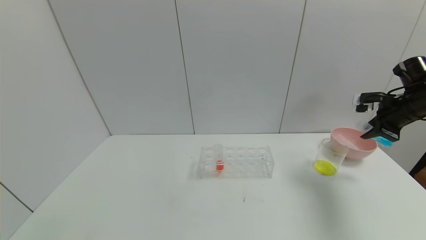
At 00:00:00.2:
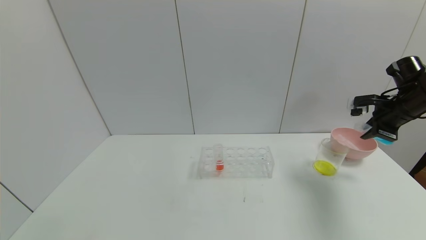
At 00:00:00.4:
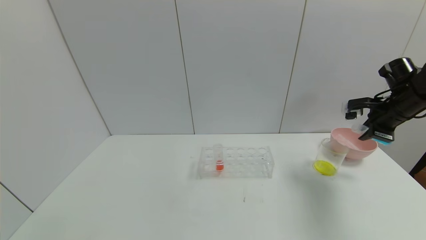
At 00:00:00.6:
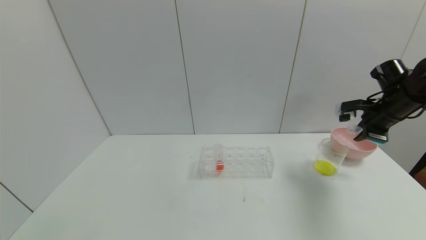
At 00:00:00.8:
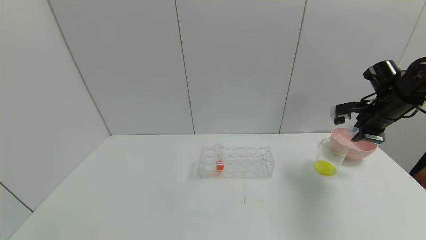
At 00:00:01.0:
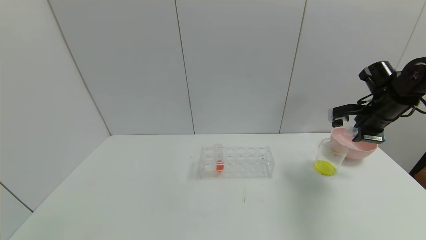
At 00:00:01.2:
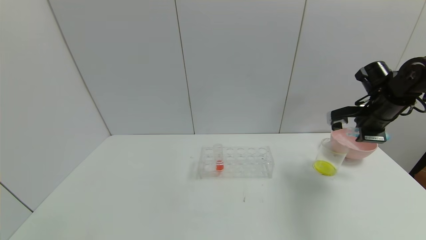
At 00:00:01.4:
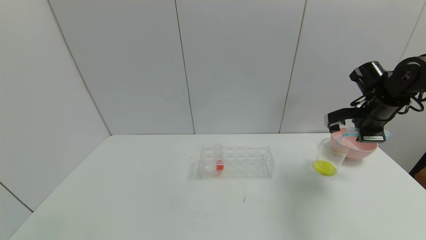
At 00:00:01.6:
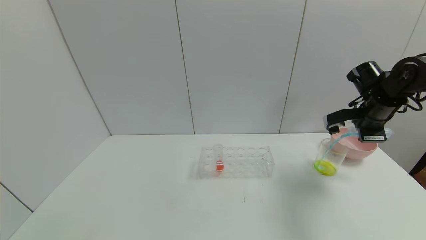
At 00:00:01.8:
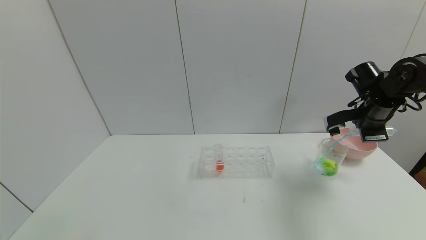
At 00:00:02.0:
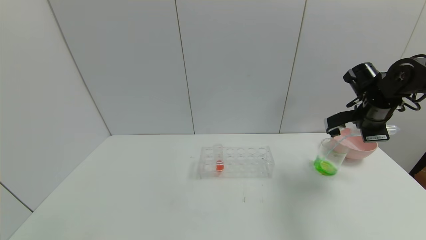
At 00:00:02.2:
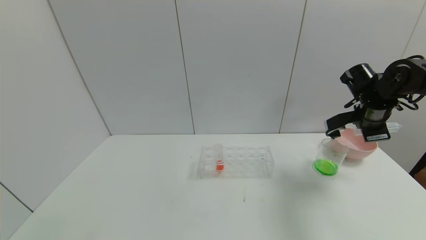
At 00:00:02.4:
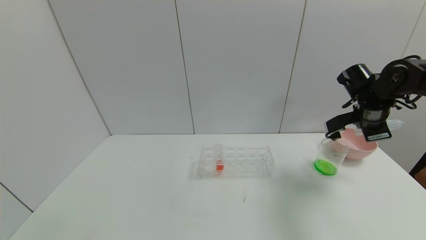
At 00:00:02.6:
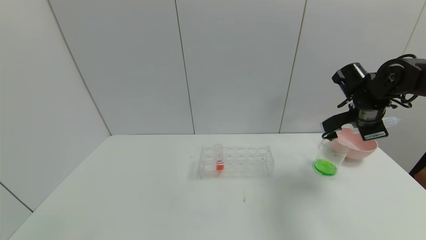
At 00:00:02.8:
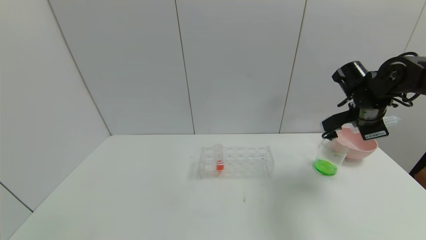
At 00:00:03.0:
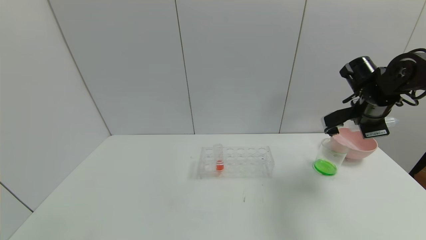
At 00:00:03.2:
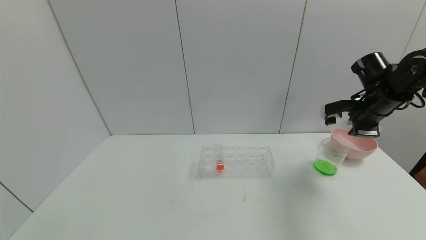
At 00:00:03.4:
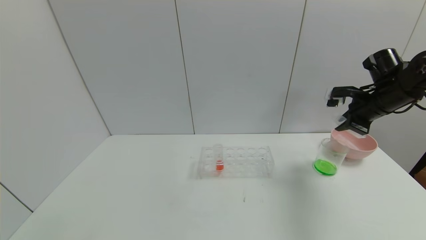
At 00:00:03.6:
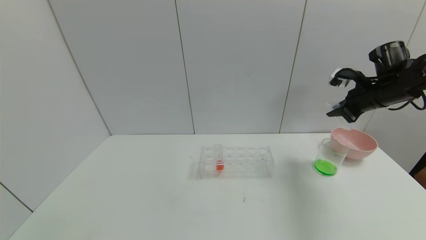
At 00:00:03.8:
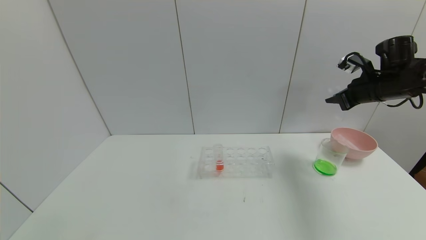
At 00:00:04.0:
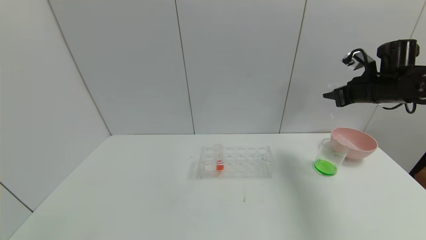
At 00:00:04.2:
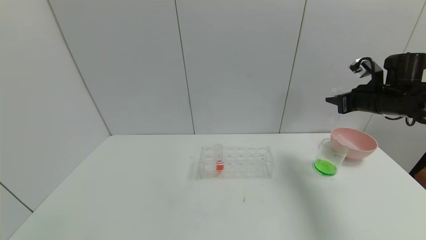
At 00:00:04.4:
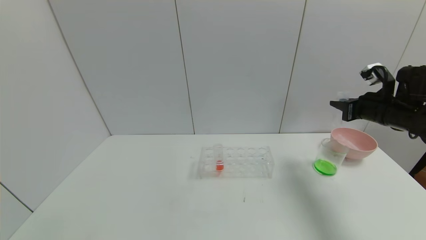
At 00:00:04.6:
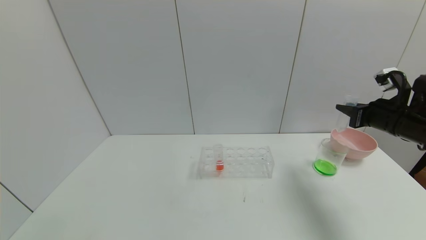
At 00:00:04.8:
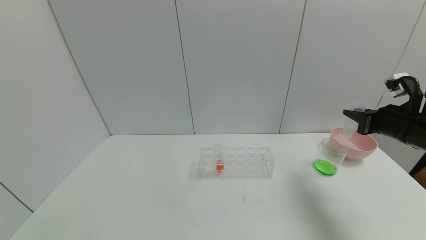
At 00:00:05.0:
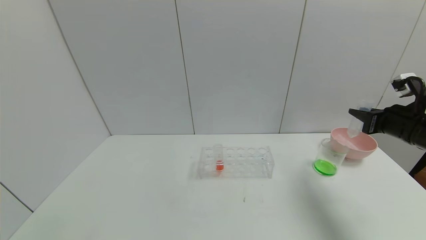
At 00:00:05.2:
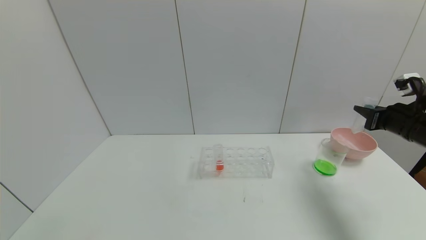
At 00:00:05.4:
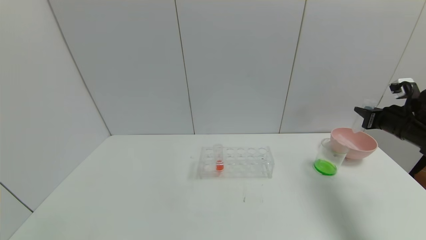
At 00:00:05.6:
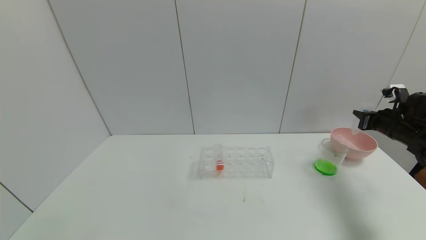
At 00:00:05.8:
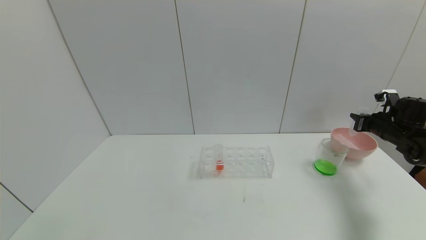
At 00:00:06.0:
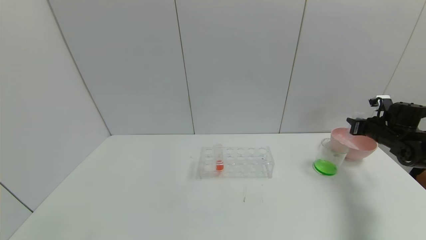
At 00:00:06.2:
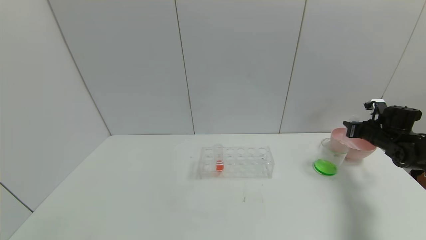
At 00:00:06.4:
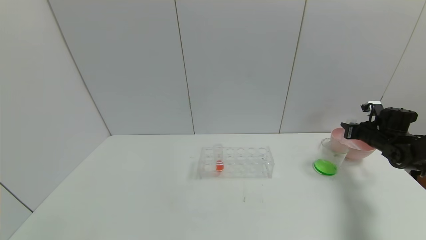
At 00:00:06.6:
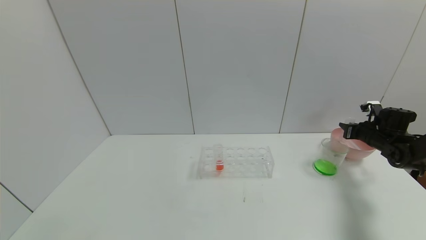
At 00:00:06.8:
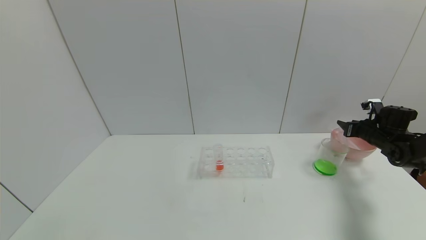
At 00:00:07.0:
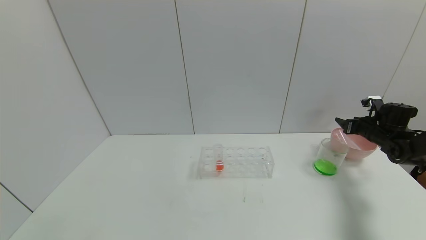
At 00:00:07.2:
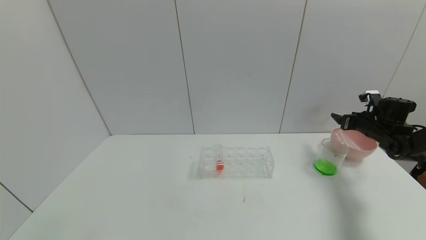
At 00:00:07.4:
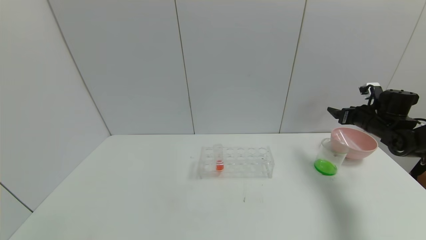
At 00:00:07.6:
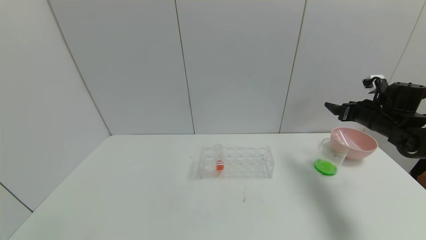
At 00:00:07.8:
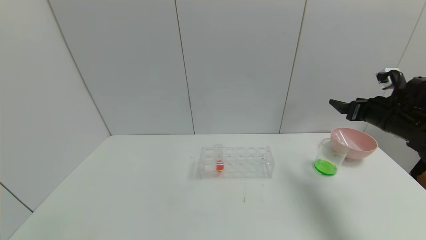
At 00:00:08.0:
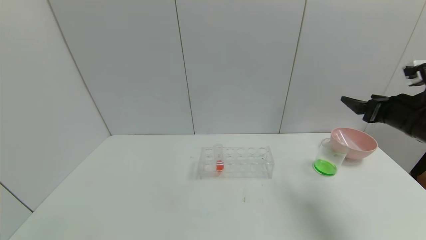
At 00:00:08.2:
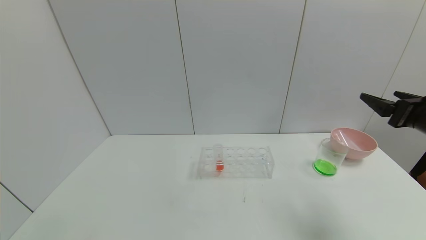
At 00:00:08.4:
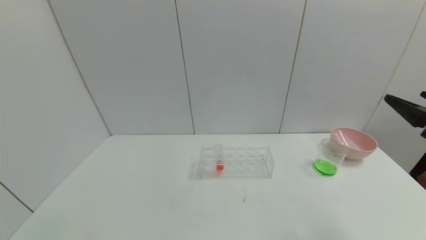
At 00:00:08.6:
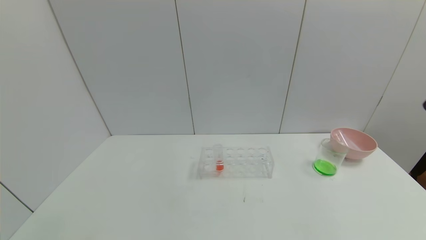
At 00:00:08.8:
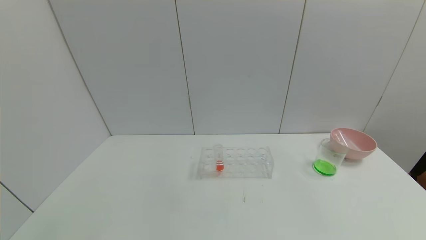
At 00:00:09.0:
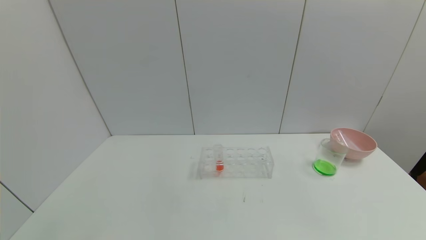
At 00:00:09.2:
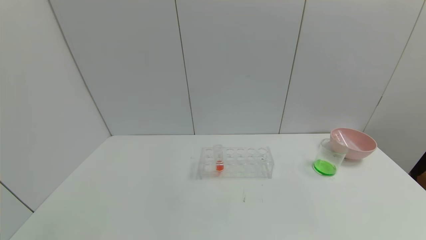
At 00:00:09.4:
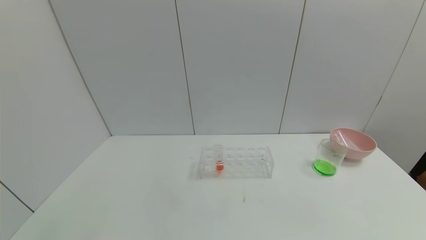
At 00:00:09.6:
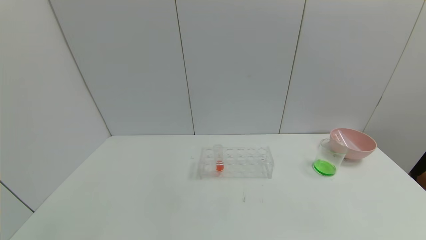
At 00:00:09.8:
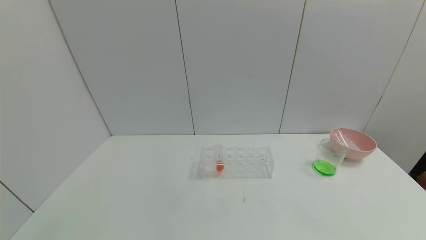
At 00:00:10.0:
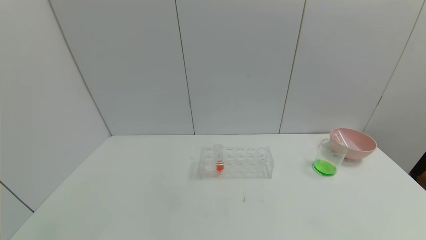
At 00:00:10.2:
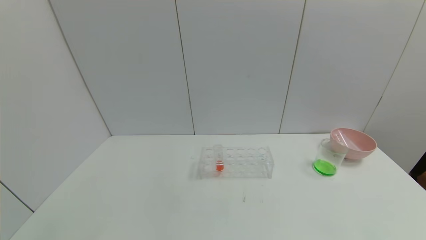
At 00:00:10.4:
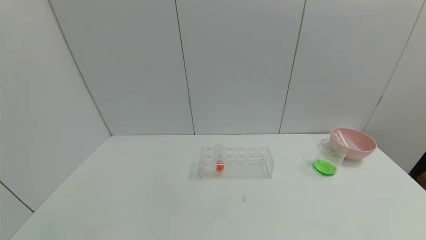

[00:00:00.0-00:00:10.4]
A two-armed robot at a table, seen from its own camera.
Task of the whole recording: pick up the test tube with yellow pigment and the test tube with blue pigment by grippers and pour them into the beaker.
Step, 00:00:00.0 to 00:00:02.6: Pour the blue reagent into the graduated cylinder with the right gripper.
Step, 00:00:02.8 to 00:00:07.0: Place the test tube into the bowl with the right gripper.
00:00:00.0 to 00:00:01.4: The right gripper is displaced to the left by about 5 cm.
00:00:04.4 to 00:00:06.0: The right gripper is displaced downward, to the right and forward by roughly 15 cm.
00:00:06.0 to 00:00:07.4: The right gripper shifts by roughly 5 cm, and opens up.
00:00:07.4 to 00:00:09.0: The right gripper travels backward by roughly 40 cm.
